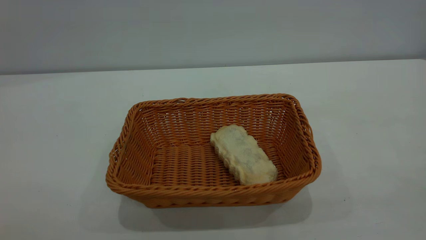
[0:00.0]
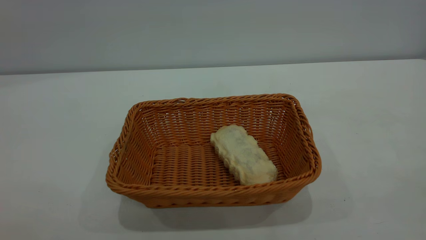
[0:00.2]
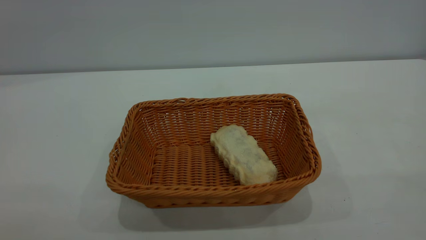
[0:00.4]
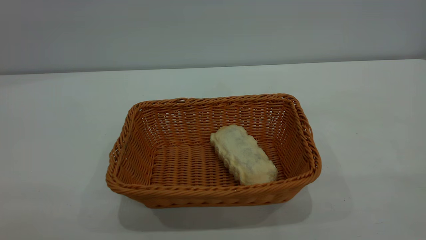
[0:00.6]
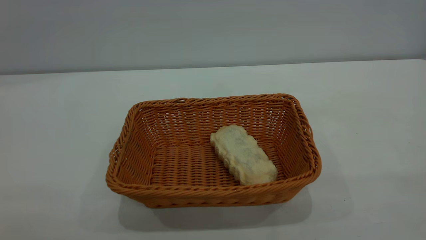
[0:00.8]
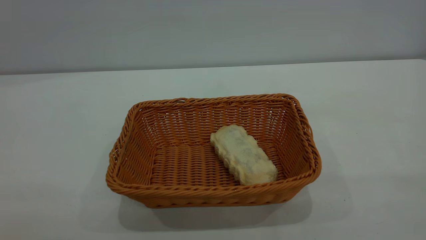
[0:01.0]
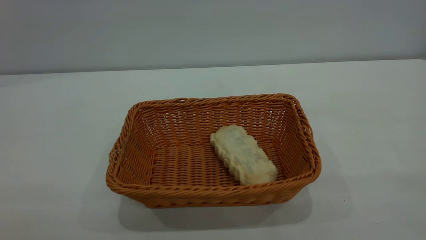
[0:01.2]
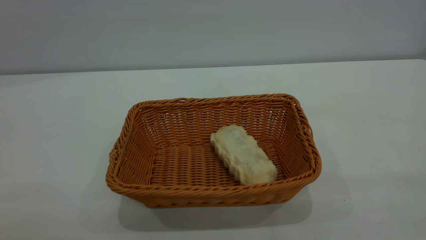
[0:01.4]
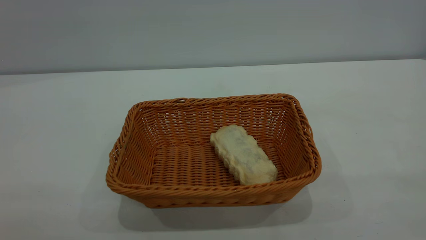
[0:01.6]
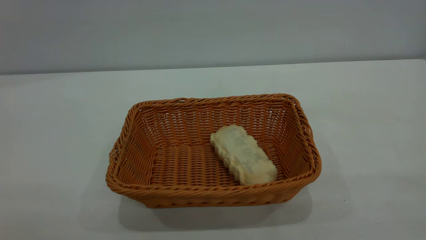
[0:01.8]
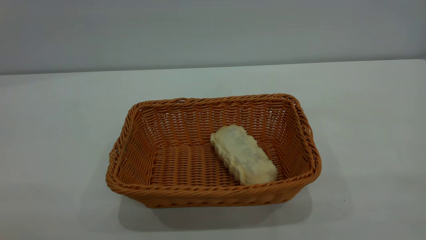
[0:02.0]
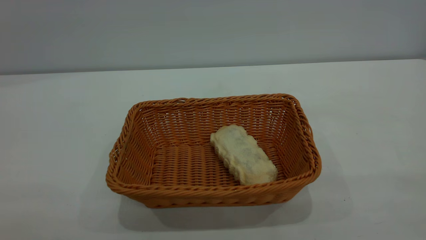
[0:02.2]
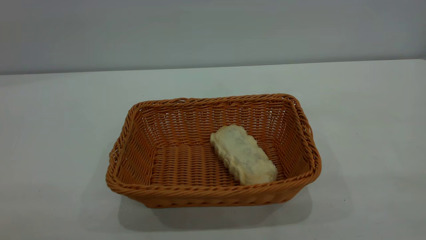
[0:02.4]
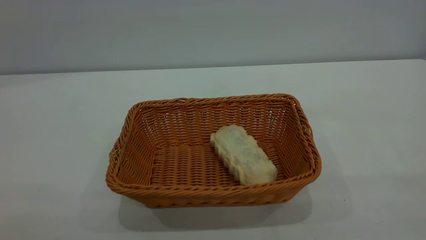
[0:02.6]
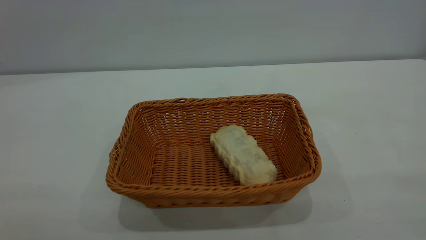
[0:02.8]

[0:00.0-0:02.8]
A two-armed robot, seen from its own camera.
Task of the whole recording: One hand grasps the yellow basket and places it in the middle of the table, while the other hand picks up the long bread and puts it into the yellow basket.
0:01.4 to 0:02.8: The two grippers keep their place.

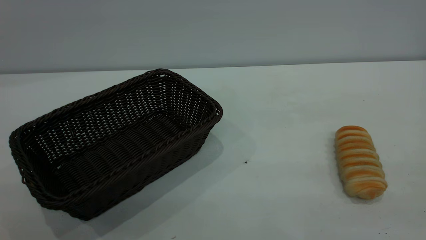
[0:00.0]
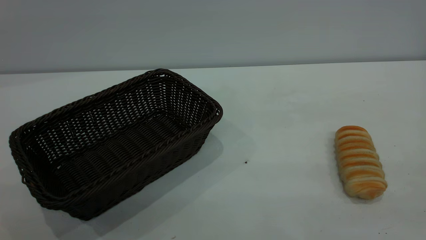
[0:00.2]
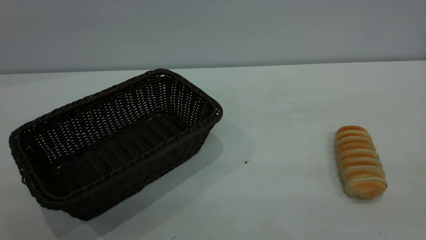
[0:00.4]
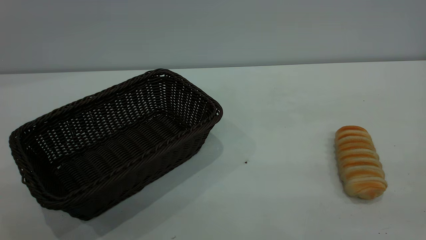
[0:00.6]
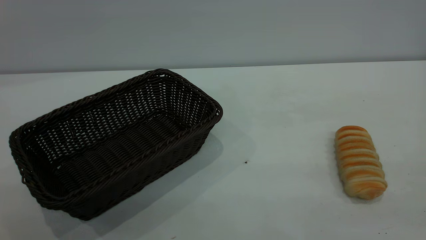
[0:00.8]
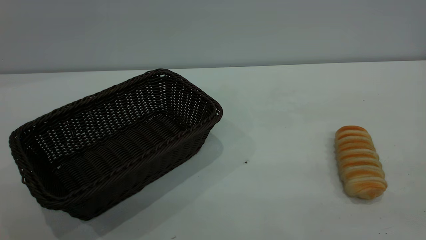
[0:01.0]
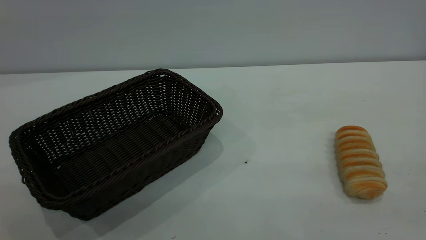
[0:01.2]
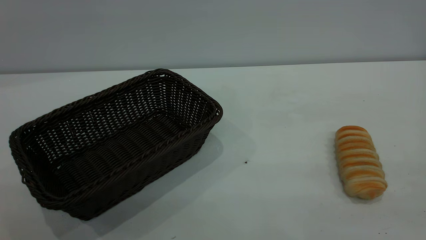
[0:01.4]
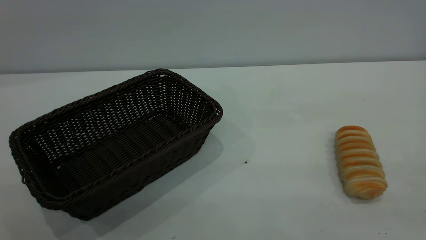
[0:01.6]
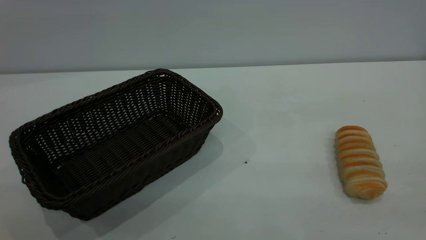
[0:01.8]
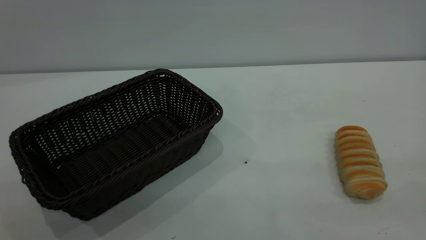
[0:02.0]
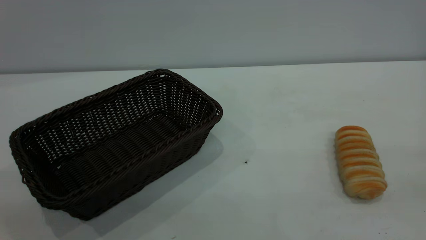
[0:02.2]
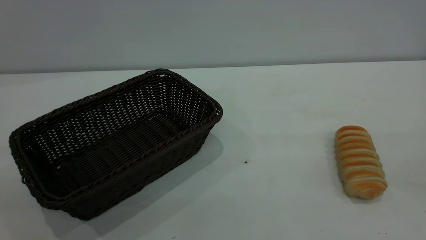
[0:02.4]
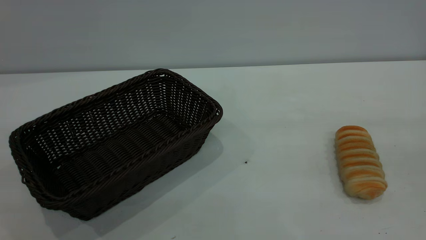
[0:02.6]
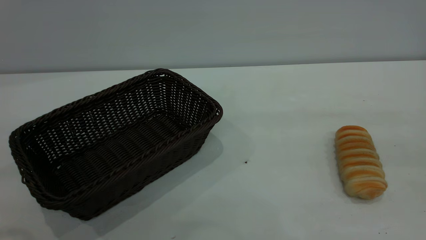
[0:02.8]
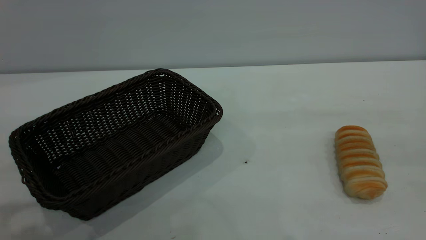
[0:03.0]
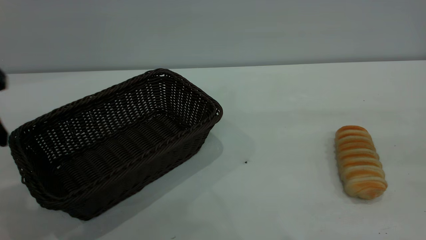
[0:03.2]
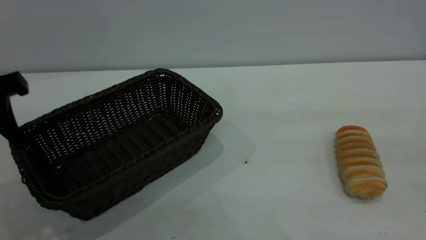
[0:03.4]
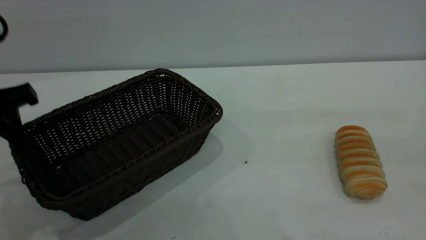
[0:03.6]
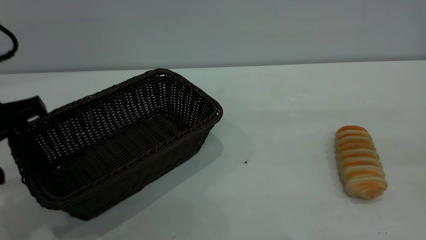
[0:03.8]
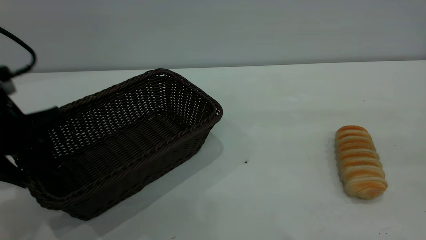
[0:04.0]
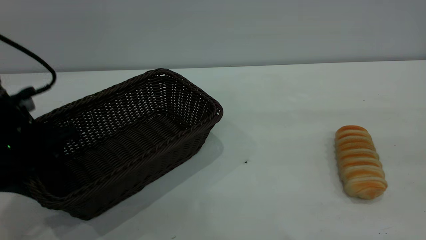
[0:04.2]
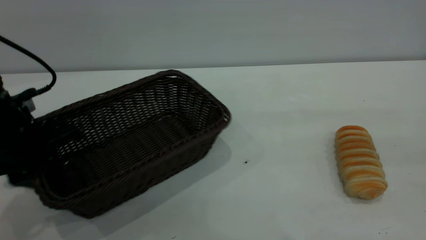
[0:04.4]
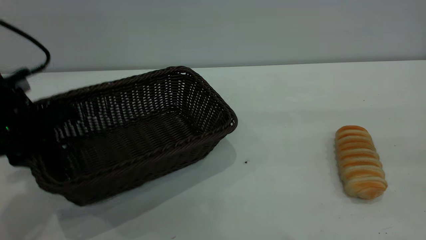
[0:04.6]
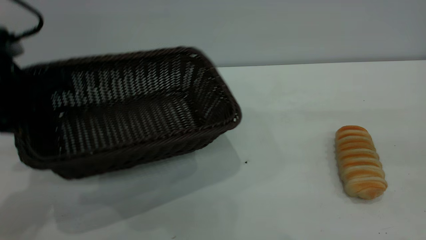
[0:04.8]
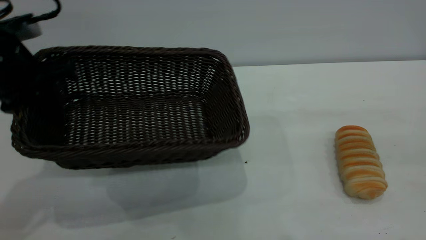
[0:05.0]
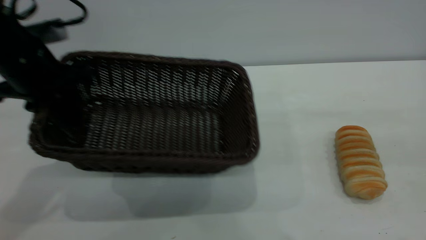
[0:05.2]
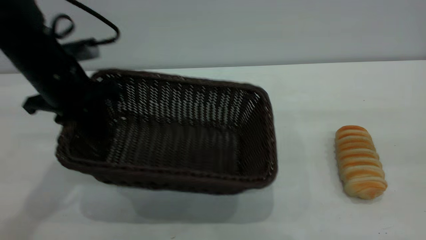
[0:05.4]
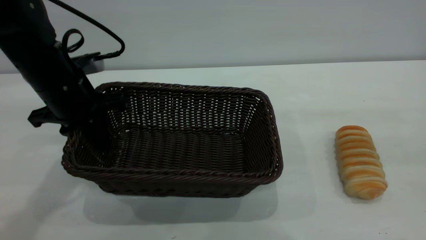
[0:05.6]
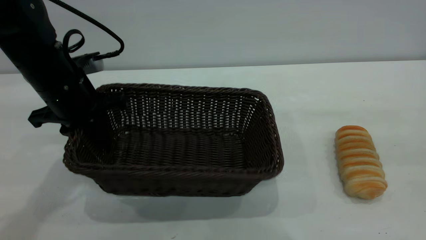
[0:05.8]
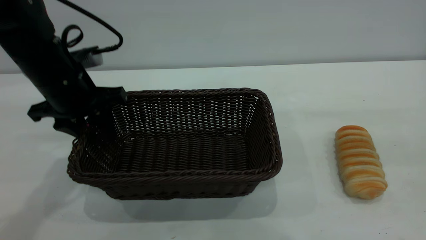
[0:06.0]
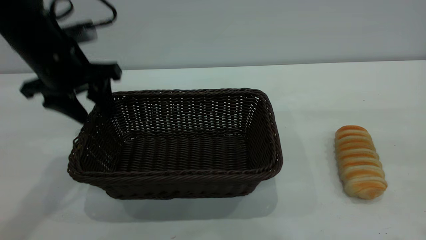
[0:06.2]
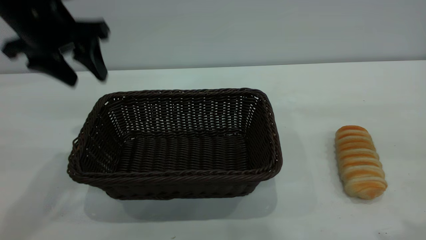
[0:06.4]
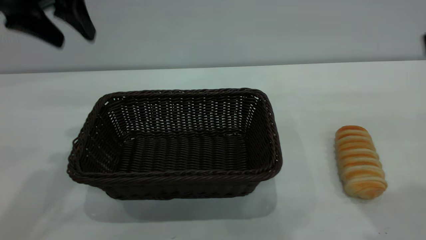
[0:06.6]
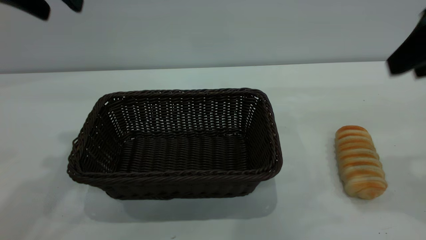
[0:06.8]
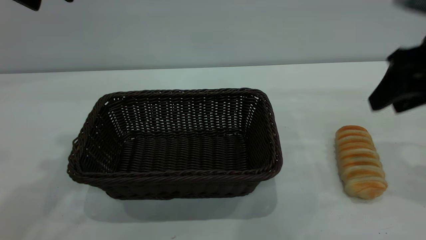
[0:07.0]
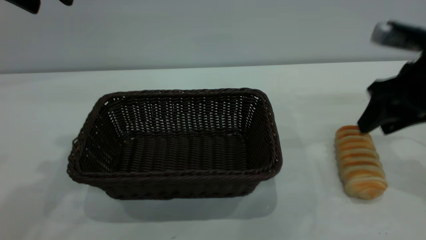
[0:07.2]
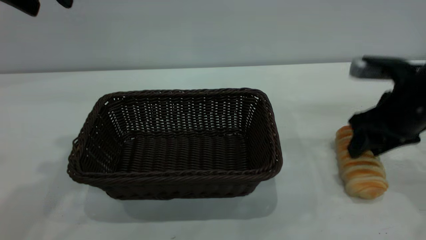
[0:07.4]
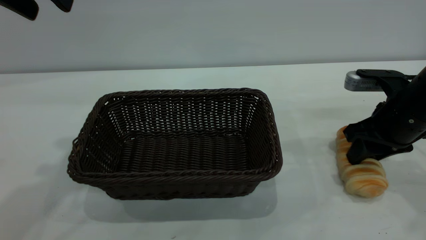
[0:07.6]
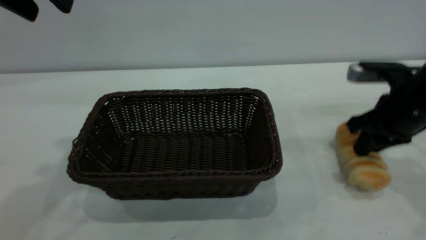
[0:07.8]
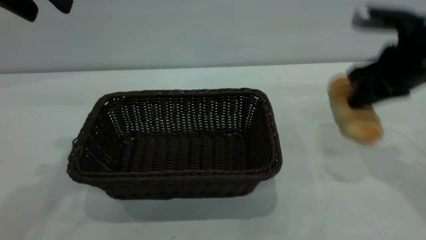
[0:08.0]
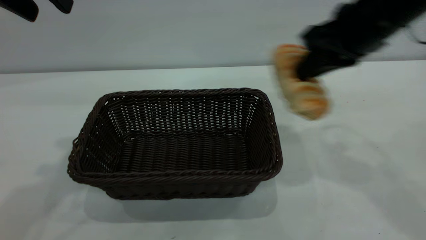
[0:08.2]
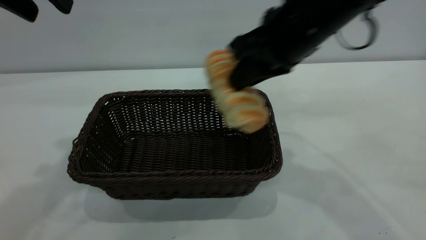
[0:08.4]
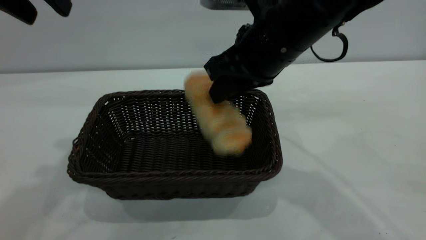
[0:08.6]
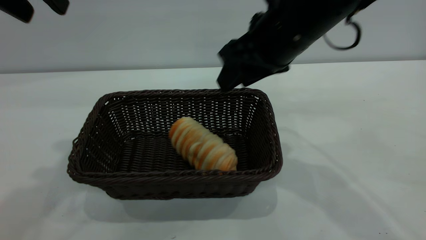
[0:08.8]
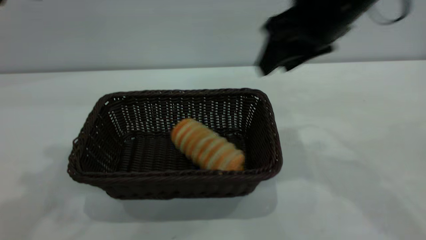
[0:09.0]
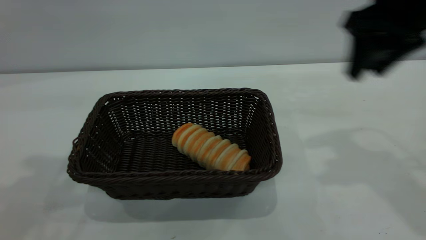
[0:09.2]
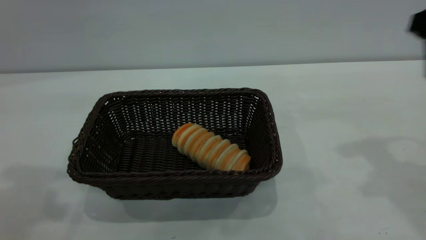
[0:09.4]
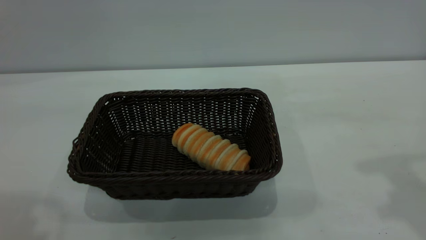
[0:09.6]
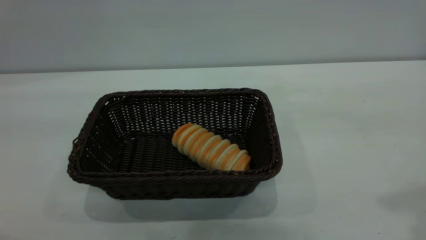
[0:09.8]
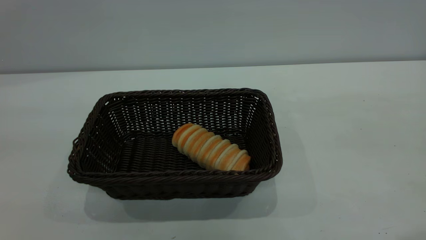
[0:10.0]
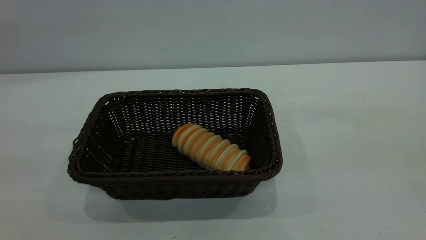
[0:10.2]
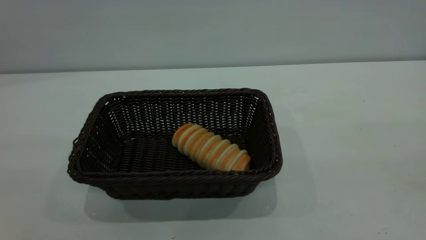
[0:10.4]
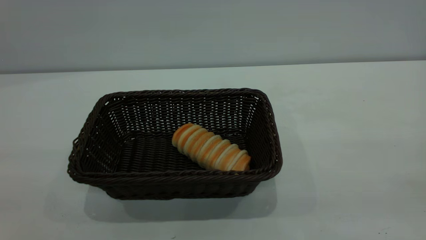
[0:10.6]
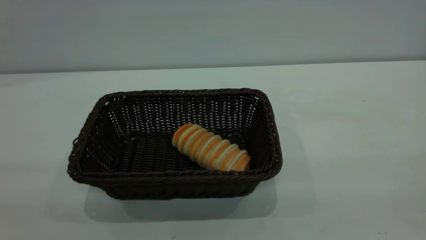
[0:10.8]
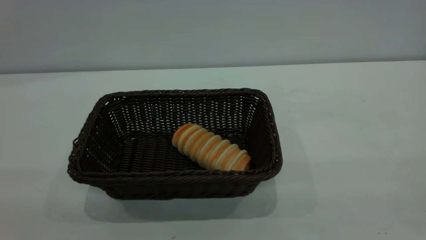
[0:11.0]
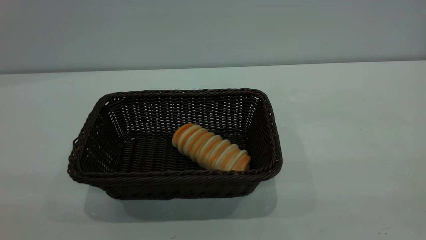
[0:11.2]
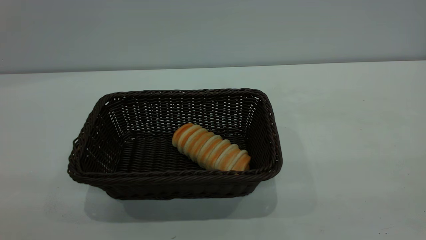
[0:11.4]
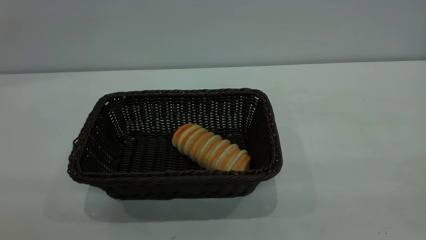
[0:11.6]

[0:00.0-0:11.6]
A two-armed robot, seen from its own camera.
Task of the whole recording: One hand grasps the black basket and places it in the middle of the table, while the other hand picks up the long bread and puts it into the black basket.
Step, 0:00.0 to 0:06.2: Move the basket to the center of view.
Step, 0:08.2 to 0:09.0: place the bread into the basket.
0:00.0 to 0:01.4: The two grippers keep their place.
0:02.8 to 0:04.4: The left gripper travels downward and forward by roughly 25 cm, and closes.
0:04.4 to 0:05.8: The left gripper heads forward, covering about 5 cm, and reaches some 10 cm upward, then returns.
0:05.8 to 0:07.2: The right gripper shifts roughly 25 cm forward and downward. The left gripper moves upward, roughly 20 cm, and opens its fingers.
0:07.2 to 0:08.8: The right gripper travels to the left and upward by approximately 20 cm, and closes, then reopens.
0:08.8 to 0:10.2: The right gripper moves backward, to the right and upward, some 35 cm; the left gripper moves backward, about 25 cm.

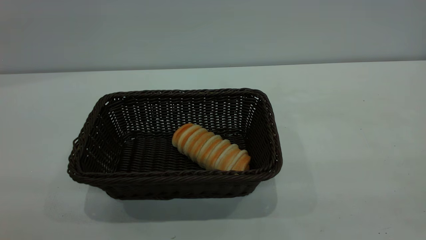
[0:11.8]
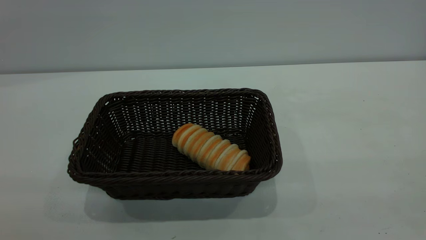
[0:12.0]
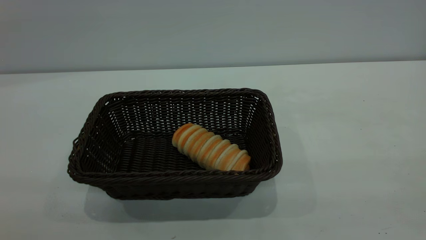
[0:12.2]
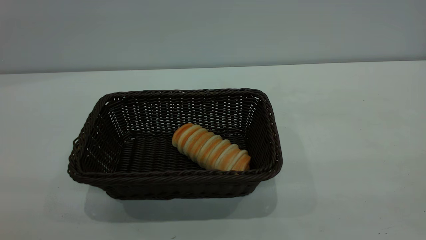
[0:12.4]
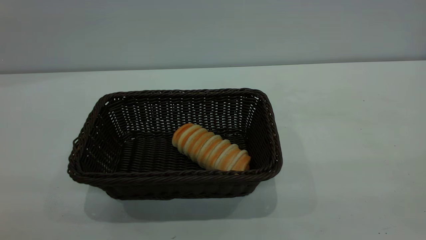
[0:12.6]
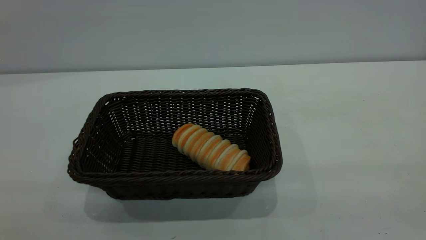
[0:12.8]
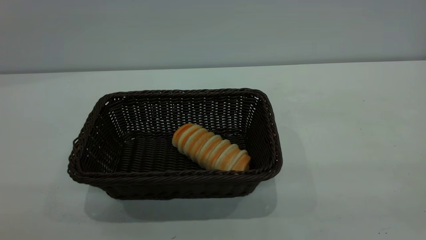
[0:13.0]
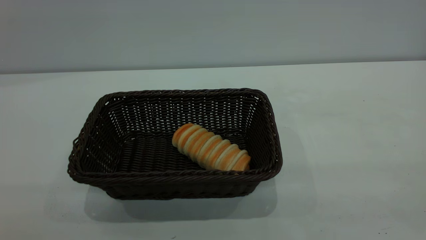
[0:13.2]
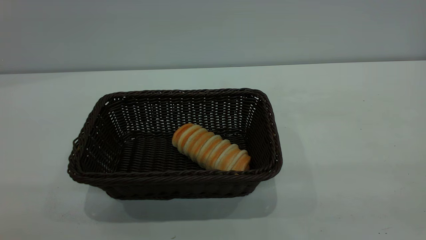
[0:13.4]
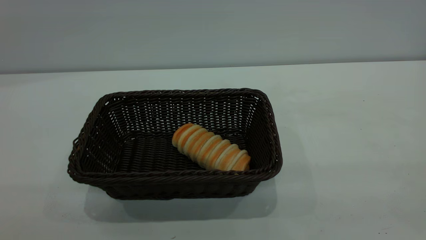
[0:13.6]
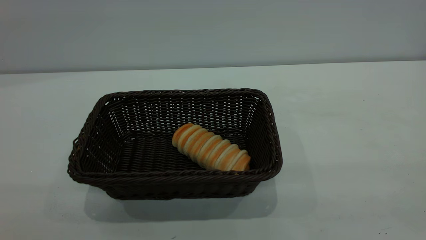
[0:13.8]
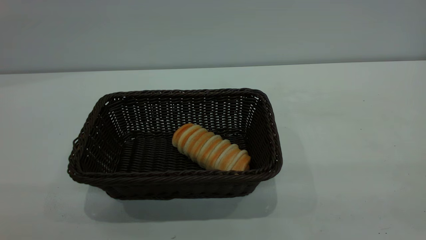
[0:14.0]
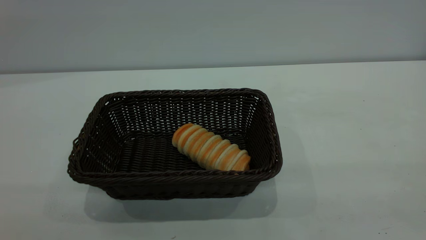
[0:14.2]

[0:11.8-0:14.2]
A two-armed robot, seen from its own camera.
Task of the whole recording: One hand grasps the black basket and places it in the middle of the table, while the other hand picks up the long bread and puts it into the black basket.
0:13.0 to 0:14.2: Both grippers stay about where they are.
